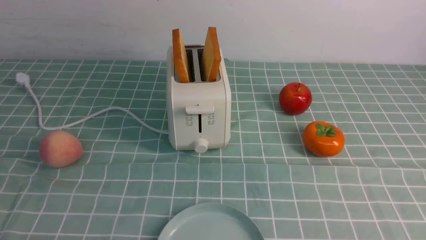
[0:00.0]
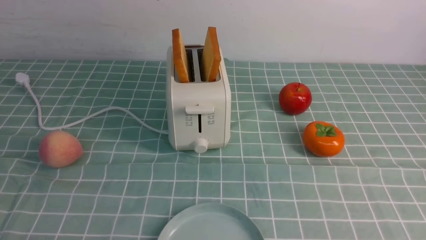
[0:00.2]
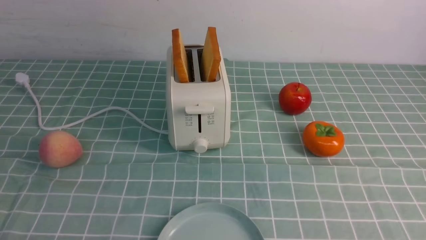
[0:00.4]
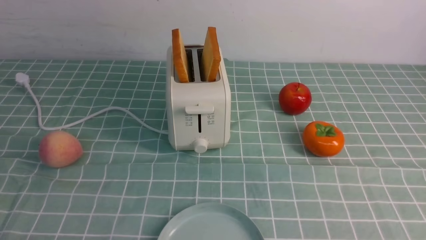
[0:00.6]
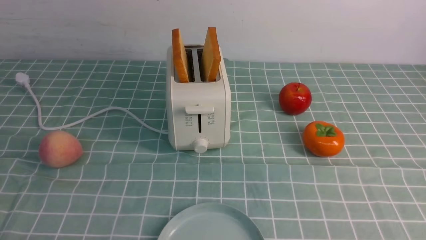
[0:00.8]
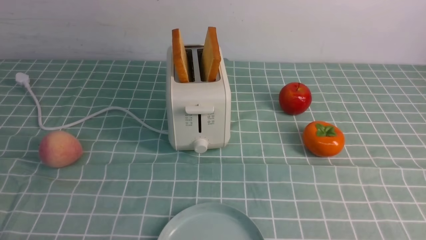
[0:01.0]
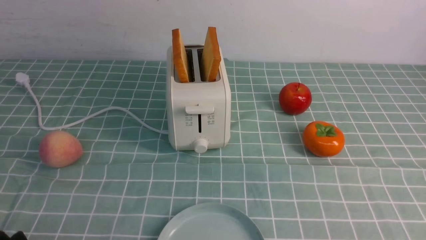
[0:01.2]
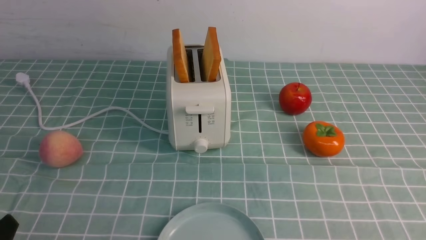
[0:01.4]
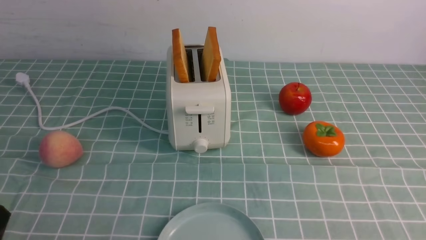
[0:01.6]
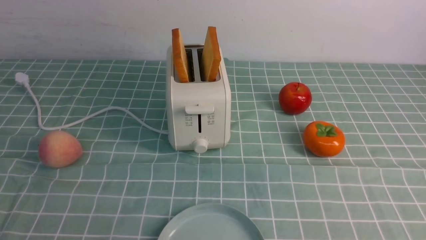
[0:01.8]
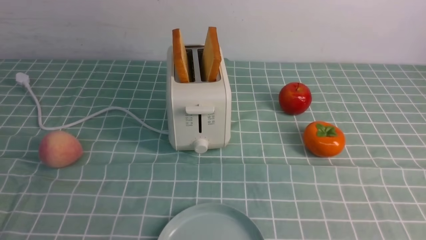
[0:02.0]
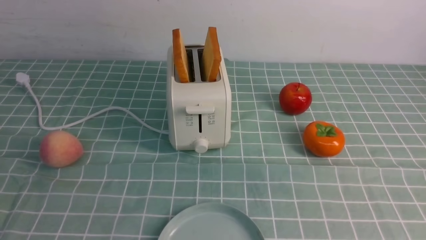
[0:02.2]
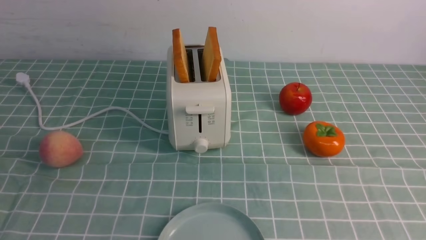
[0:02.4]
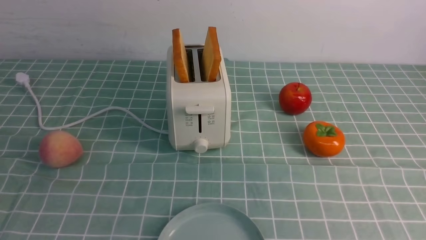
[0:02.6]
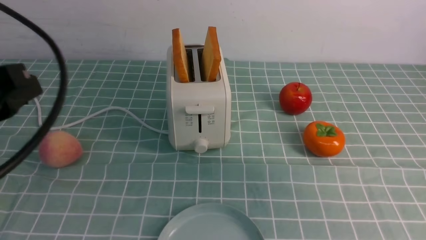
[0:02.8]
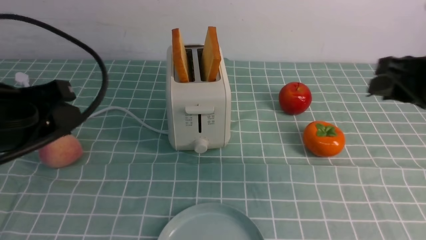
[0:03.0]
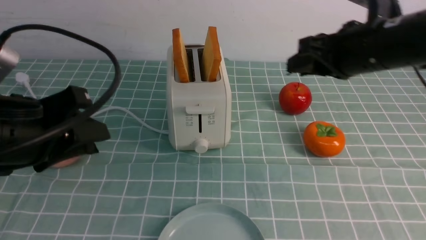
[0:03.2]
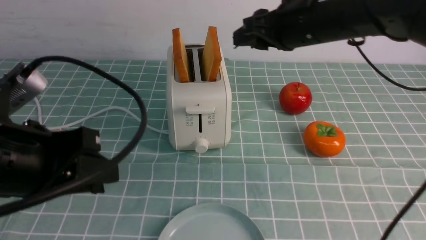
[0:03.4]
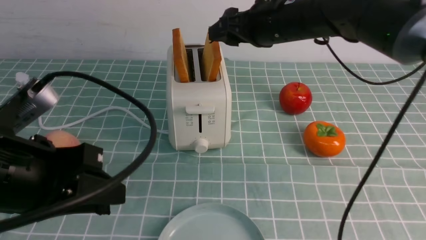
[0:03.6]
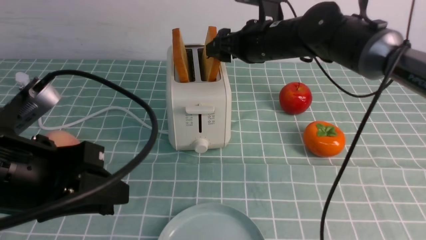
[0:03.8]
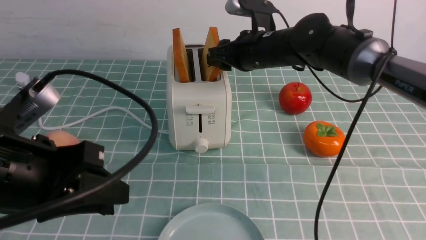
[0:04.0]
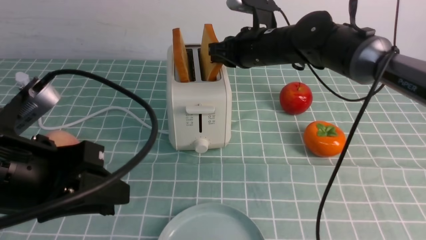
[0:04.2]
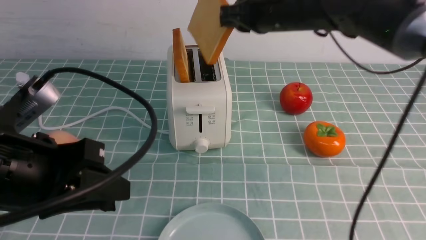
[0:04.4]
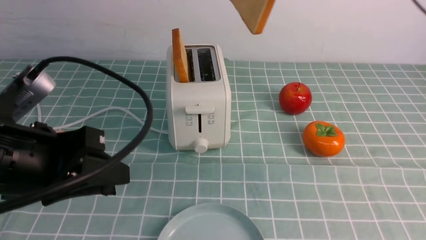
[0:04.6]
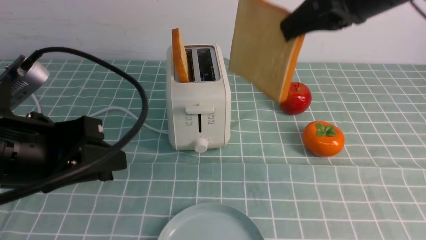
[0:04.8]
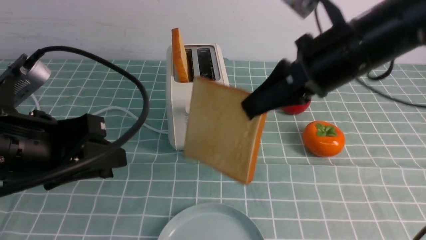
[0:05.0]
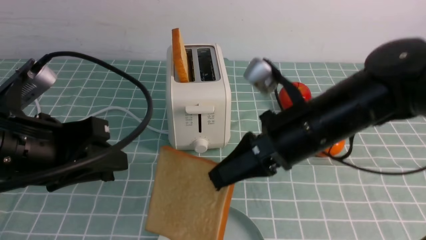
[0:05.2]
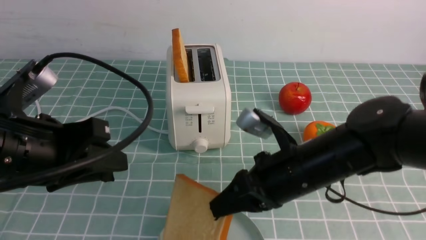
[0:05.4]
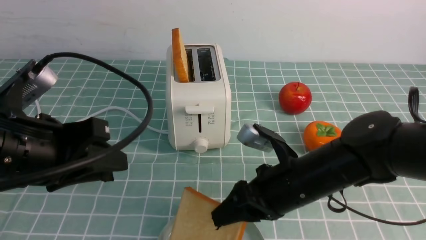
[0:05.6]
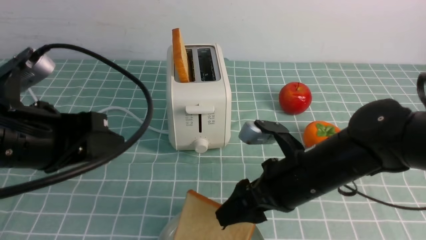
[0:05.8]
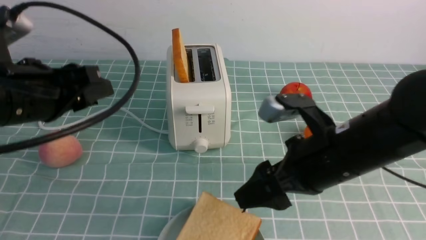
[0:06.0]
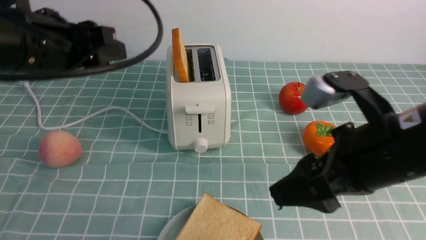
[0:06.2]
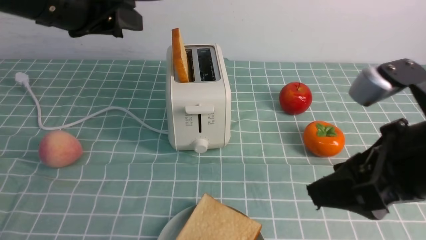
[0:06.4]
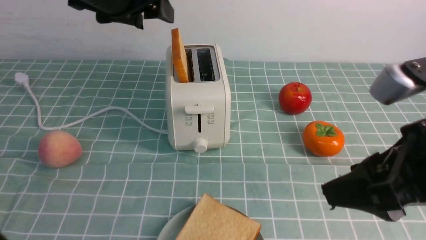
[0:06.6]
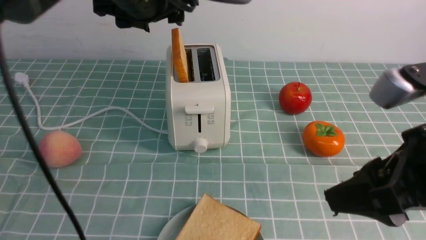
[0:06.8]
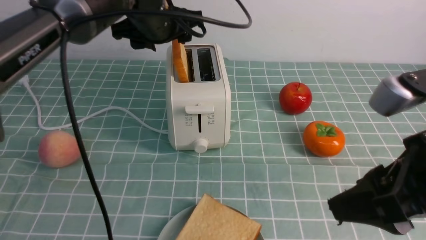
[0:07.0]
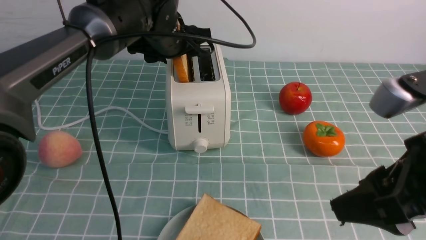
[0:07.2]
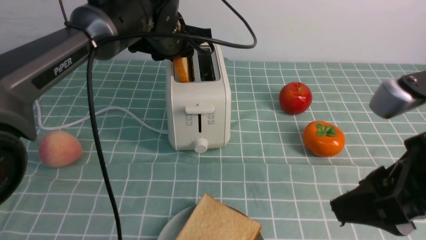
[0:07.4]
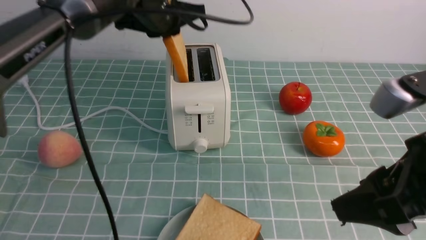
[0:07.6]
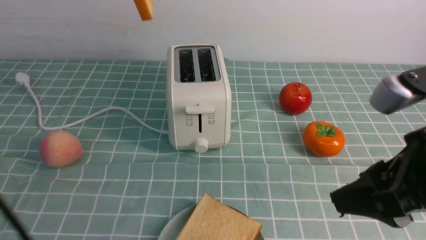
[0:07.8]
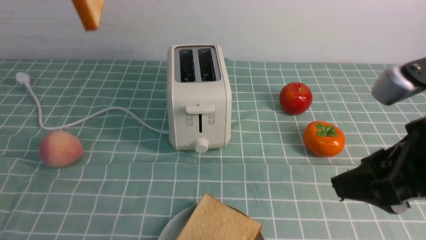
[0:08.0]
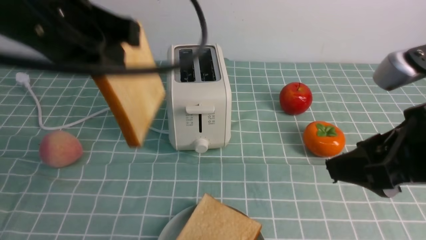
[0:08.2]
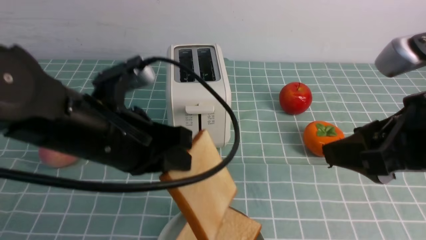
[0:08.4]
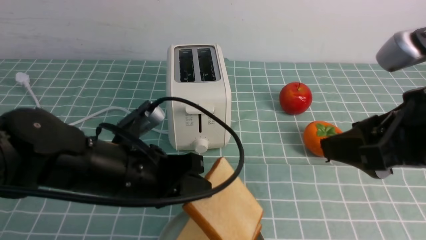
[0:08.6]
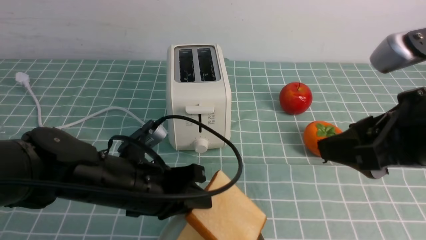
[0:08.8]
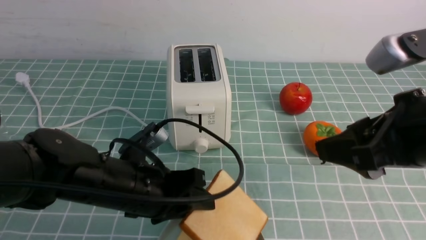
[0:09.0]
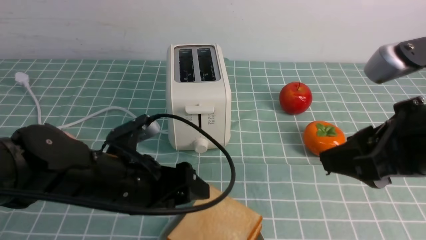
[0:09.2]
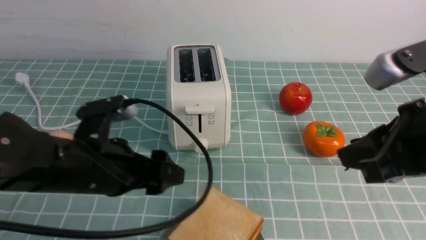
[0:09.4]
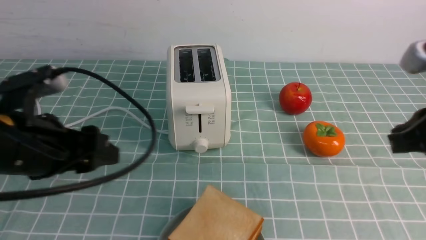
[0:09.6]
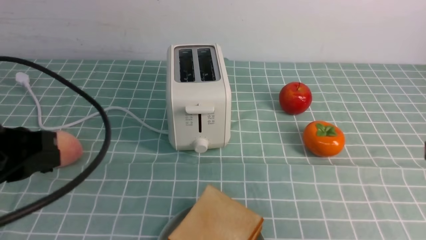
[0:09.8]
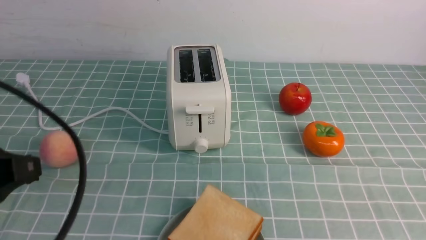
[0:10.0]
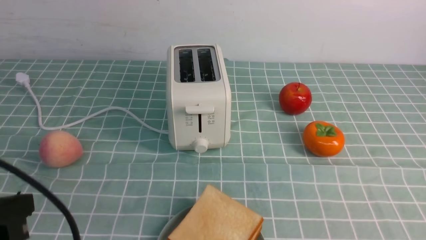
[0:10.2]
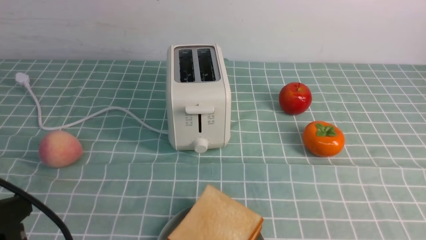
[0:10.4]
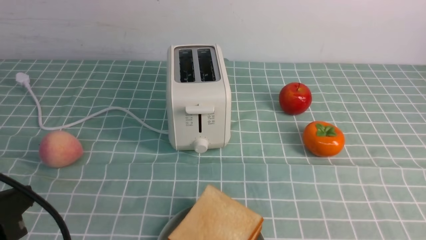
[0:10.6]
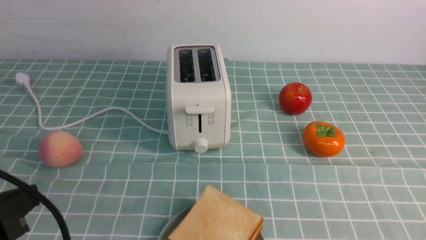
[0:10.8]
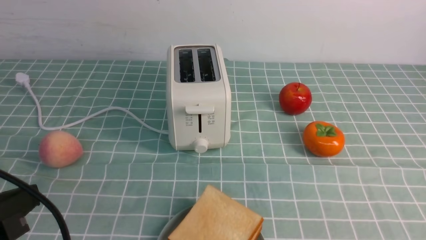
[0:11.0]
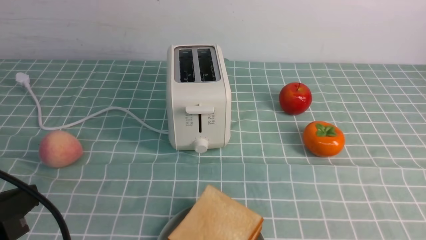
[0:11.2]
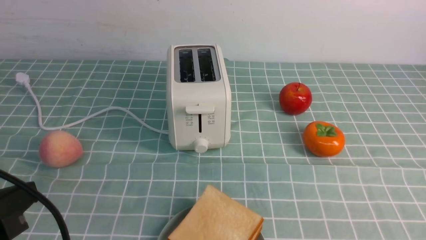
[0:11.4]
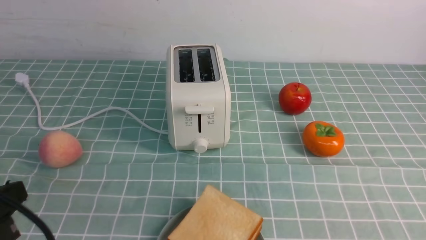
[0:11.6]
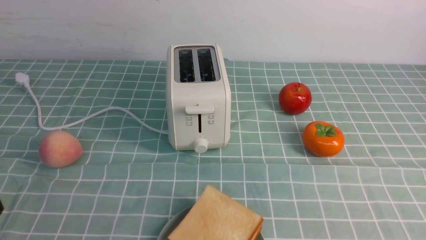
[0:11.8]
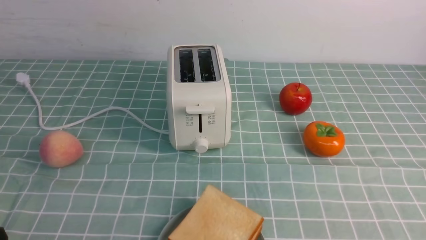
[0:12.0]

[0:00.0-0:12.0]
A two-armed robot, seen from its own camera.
Task of the whole recording: take toasted bread from bread machine on blue coffee table place on plate.
Step, 0:00.0 to 0:04.4: use the right arm to take out a slice of bread.
Step, 0:04.6 to 0:06.2: use the right arm to put a slice of bread into the plate.
Step, 0:06.4 to 0:07.6: use the left arm to take out a slice of bread.
Step, 0:07.8 to 0:09.4: use the left arm to put a slice of bread into the empty plate.
0:01.6 to 0:03.0: The two grippers go roughly 25 cm forward and upward.
0:03.0 to 0:04.4: The right gripper shifts about 20 cm forward and to the left, and opens, then closes again.
0:04.4 to 0:06.0: The right gripper goes up and down, about 20 cm each way, reversing 2 times, and opens its fingers, while the left gripper is displaced forward by roughly 5 cm.
0:06.0 to 0:07.6: The right gripper is displaced backward, upward and to the right by roughly 10 cm, while the left gripper is displaced forward and to the right by roughly 20 cm, and closes its fingers.
0:07.6 to 0:09.0: The left gripper moves downward and backward, approximately 25 cm, and opens up.
0:09.0 to 0:10.4: The left gripper moves backward, to the left and upward, some 20 cm, and closes its fingers. The right gripper goes some 20 cm downward, to the right and backward, and closes up.
0:10.4 to 0:12.0: The left gripper heads downward, covering approximately 10 cm.

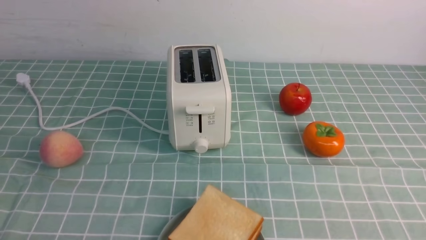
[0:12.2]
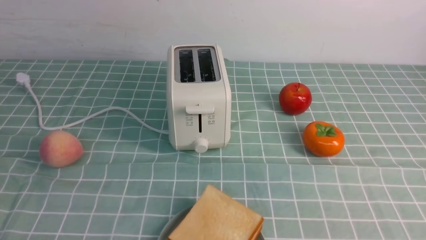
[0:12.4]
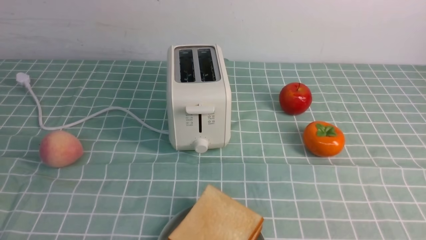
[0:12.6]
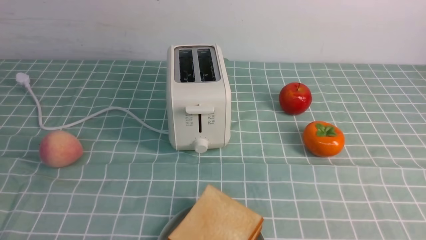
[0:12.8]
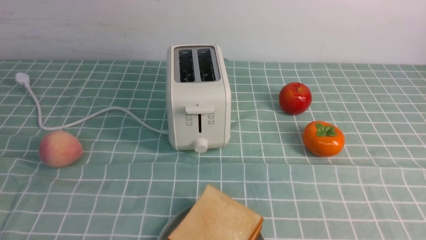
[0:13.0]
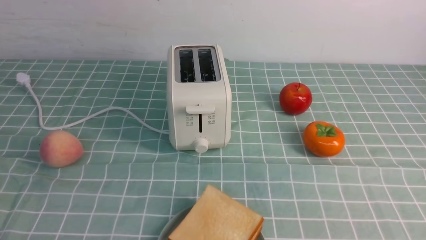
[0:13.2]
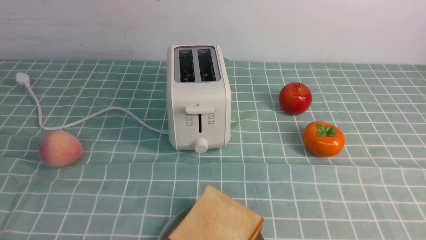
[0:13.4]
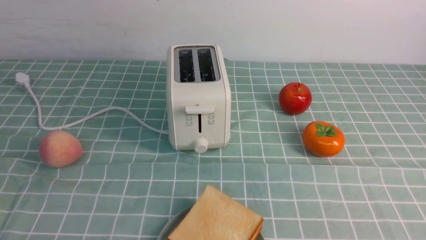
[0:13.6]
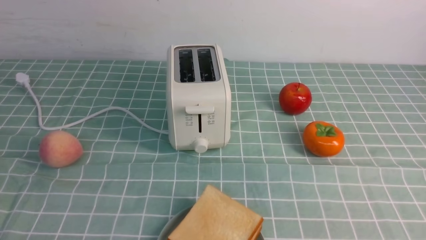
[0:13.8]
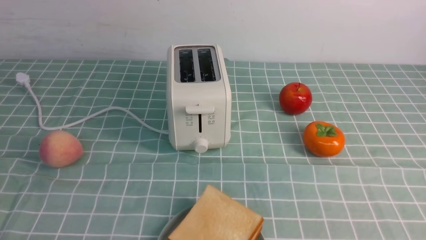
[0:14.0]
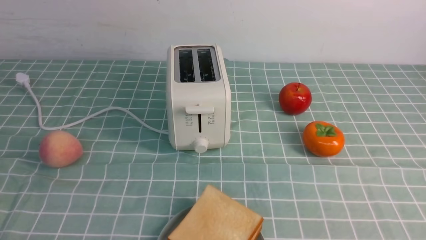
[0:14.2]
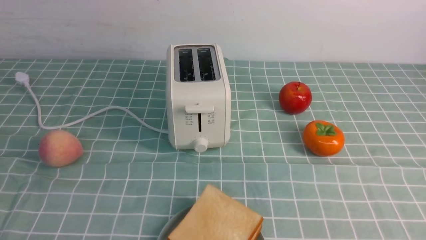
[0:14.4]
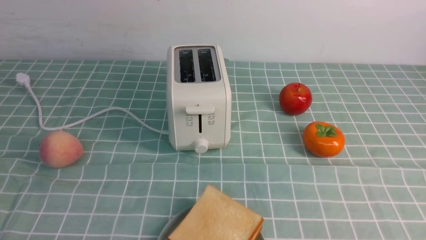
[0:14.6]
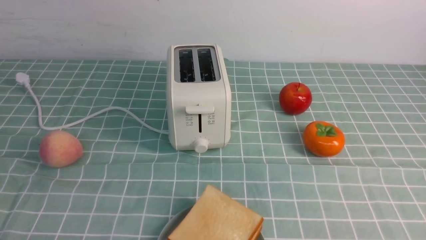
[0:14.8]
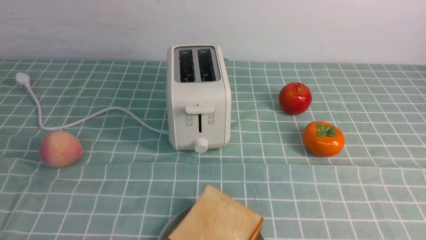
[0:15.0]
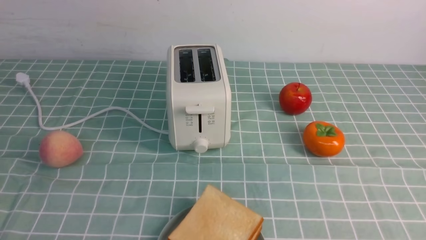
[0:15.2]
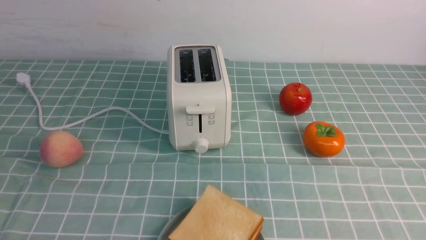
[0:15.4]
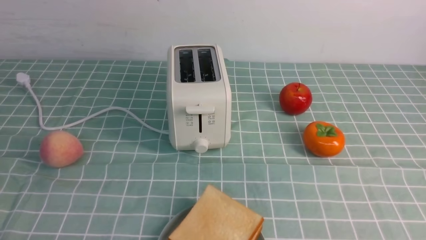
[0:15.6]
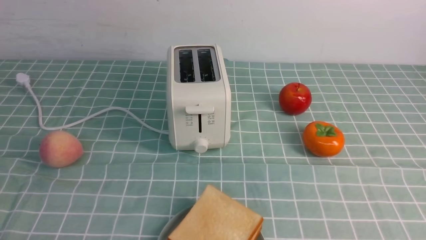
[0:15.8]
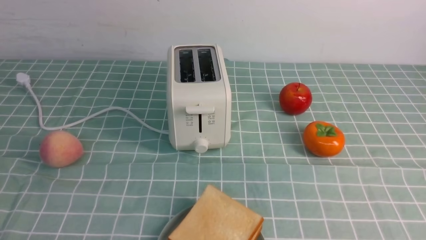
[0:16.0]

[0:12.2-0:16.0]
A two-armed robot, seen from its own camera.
Task of the whole recording: take toasted bread from bread machine on blue coffee table place on plate.
0:12.2 to 0:13.4: Both grippers stay put.

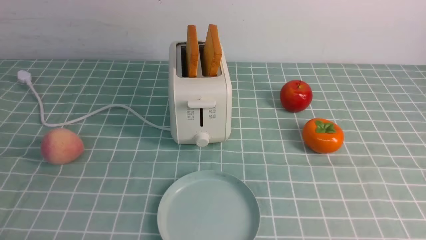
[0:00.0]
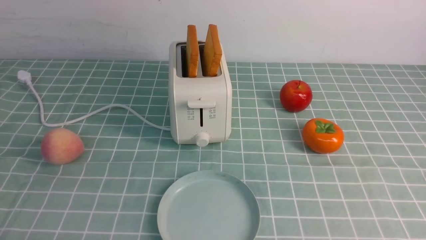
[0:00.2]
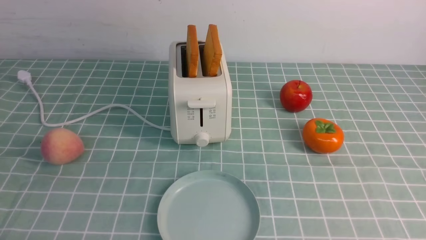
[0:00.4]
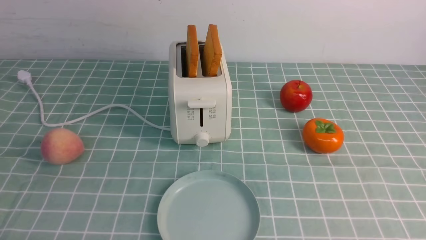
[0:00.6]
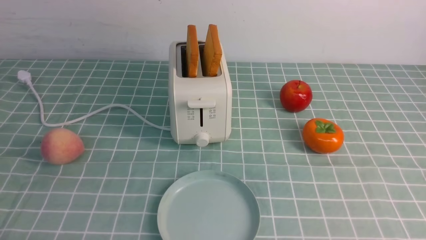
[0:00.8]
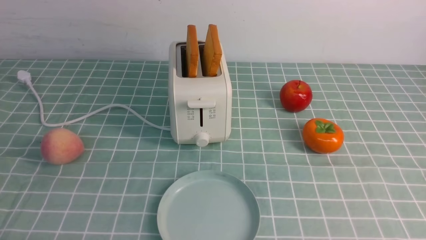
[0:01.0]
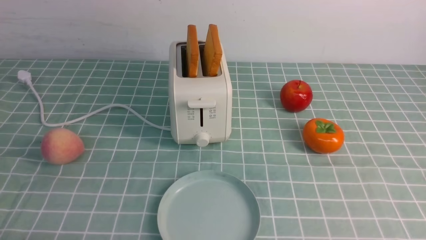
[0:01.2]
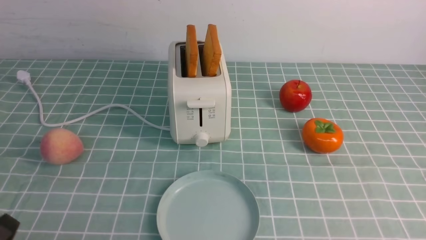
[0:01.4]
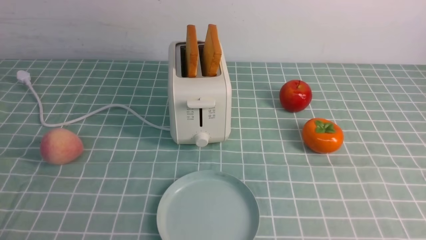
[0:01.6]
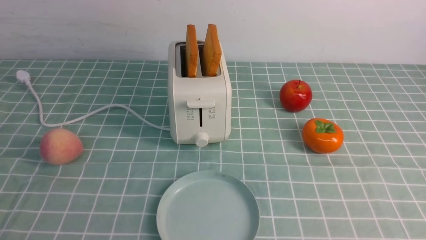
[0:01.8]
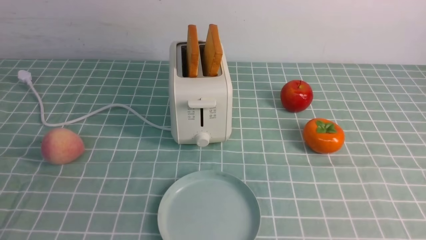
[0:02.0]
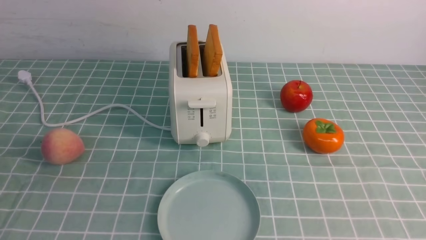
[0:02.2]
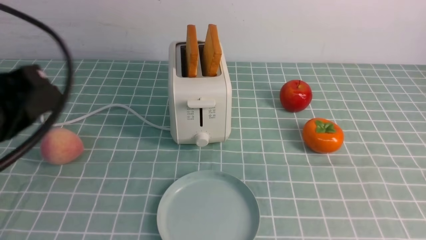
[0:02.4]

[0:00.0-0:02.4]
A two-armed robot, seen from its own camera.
Task of the whole recording: take toasted bread from bread machine on blue coffee table place on plate.
0:01.2 to 0:02.4: The left gripper heads upward and forward, covering approximately 20 cm, and closes.
